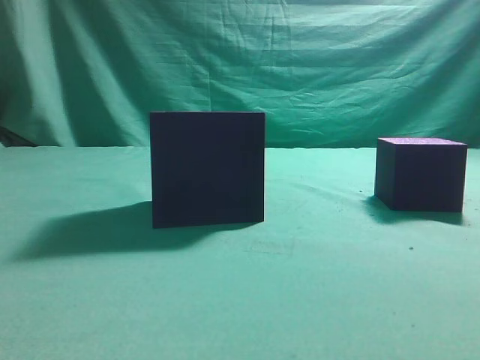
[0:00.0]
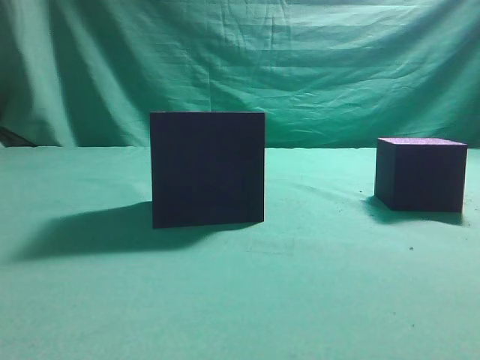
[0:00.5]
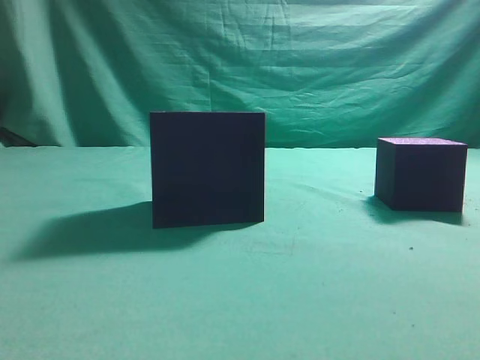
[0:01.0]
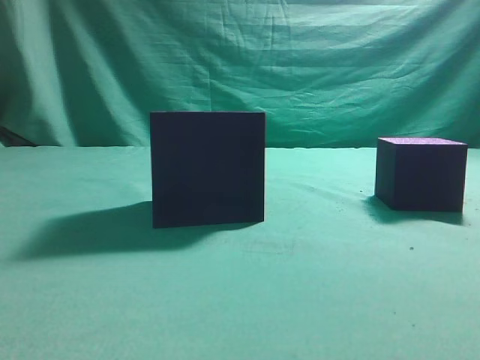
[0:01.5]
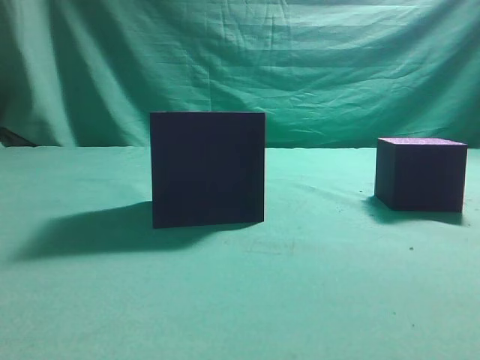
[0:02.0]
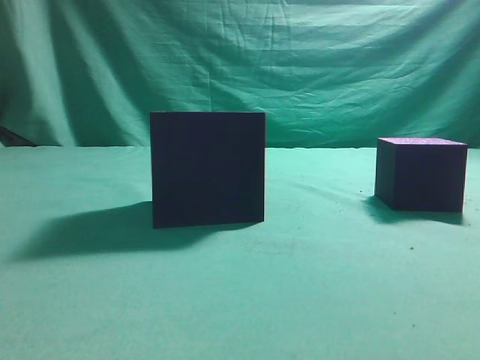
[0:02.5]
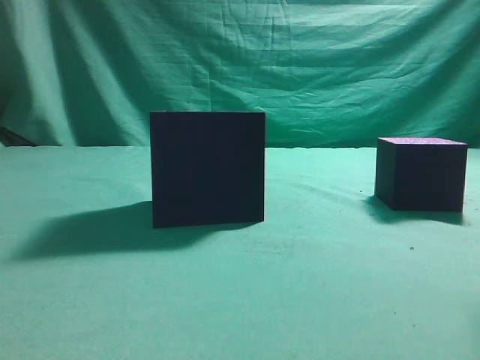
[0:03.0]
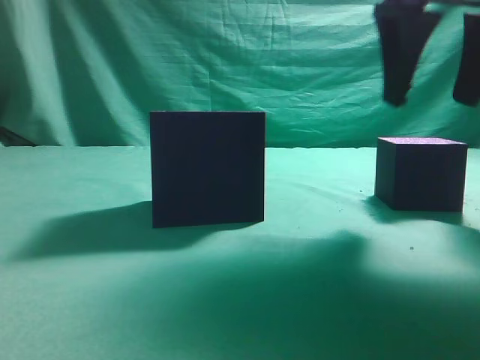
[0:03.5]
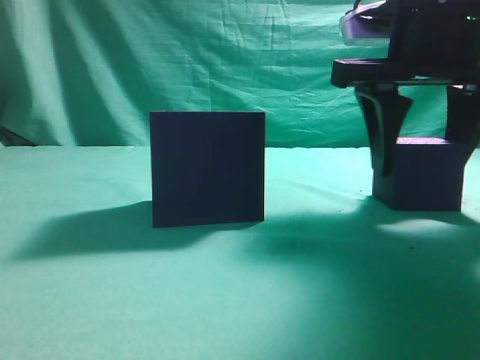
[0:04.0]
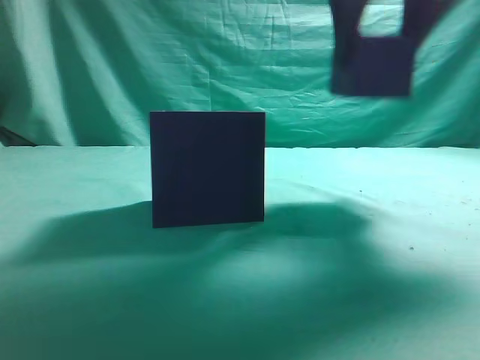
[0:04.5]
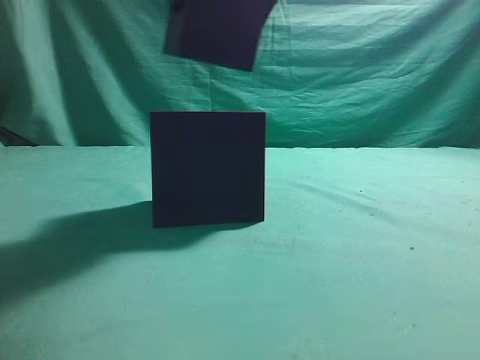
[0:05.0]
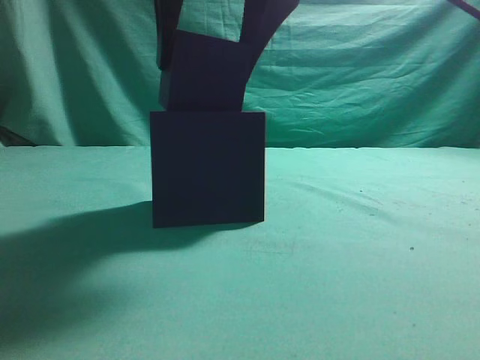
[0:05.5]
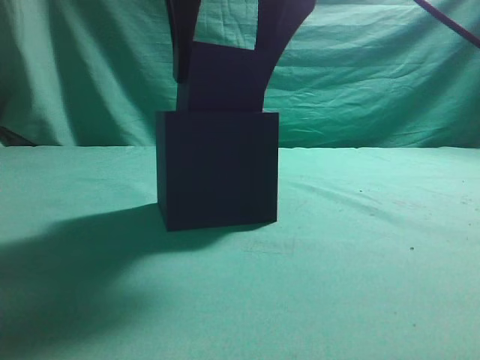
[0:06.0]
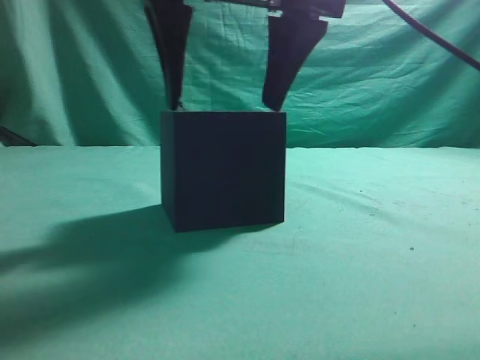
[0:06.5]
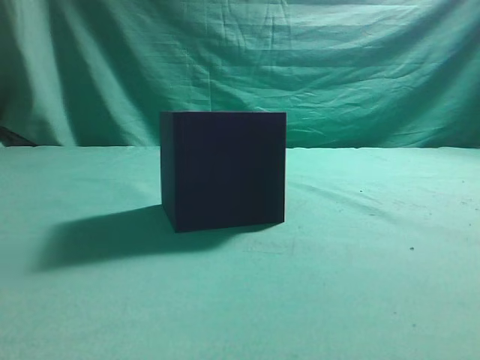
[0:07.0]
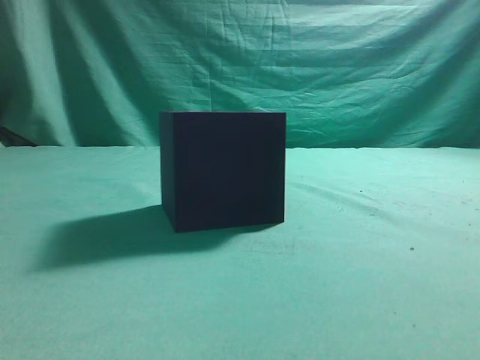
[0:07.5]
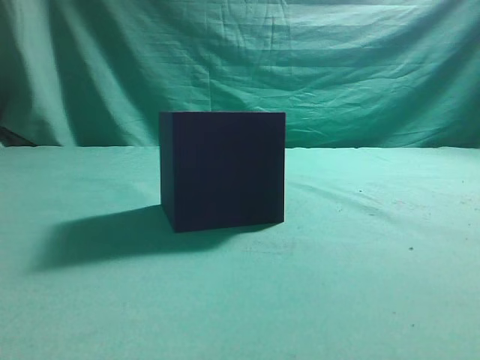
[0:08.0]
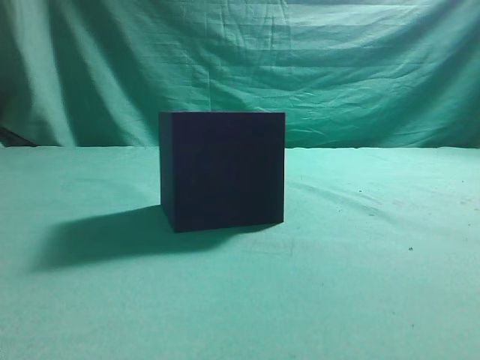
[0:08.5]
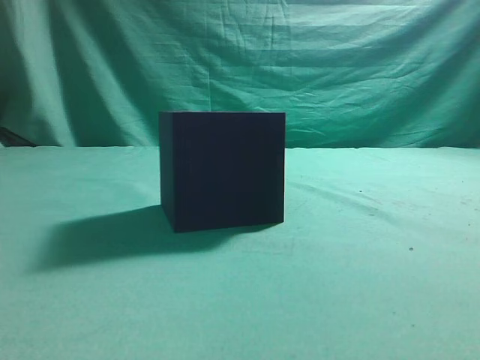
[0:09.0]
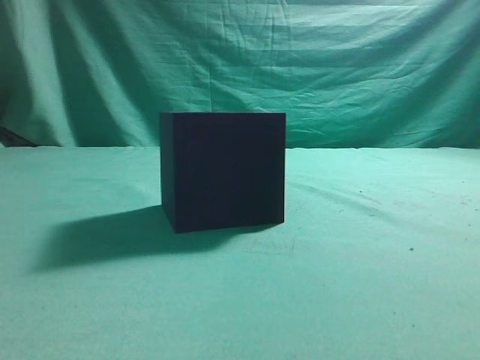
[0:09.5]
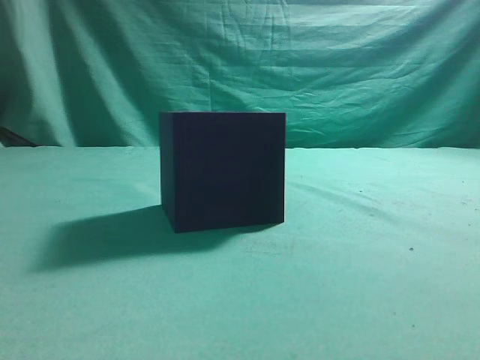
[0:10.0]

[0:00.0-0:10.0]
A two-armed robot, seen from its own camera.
Task of the whole recording: pick up the cube block and place it into the cube groove.
Step, 0:00.0 to 0:04.0: Grasp the cube.
Step, 0:04.5 to 0:06.5: Place cube into the cube-shaped recess.
0:02.0 to 0:04.0: The right gripper heads forward and to the left, covering about 25 cm, and opens up.
0:04.0 to 0:06.0: The right gripper is displaced to the left and upward by roughly 15 cm.
0:06.0 to 0:08.0: The right gripper goes roughly 25 cm to the right, backward and upward, and closes its fingers.
